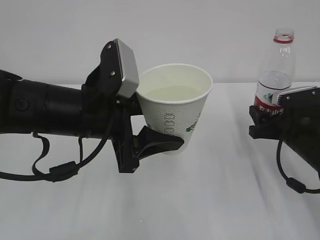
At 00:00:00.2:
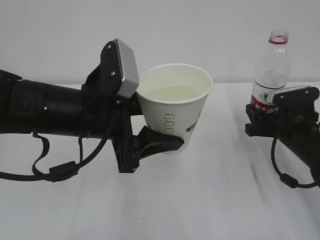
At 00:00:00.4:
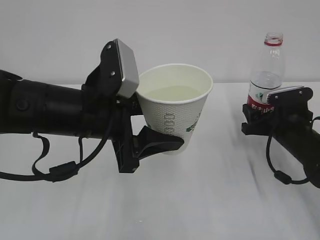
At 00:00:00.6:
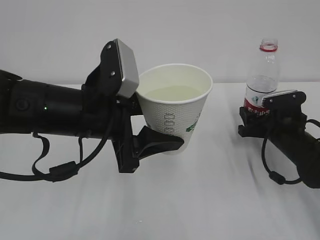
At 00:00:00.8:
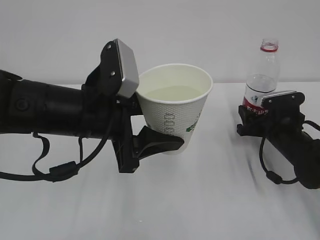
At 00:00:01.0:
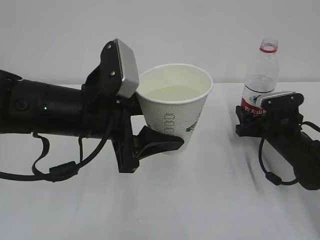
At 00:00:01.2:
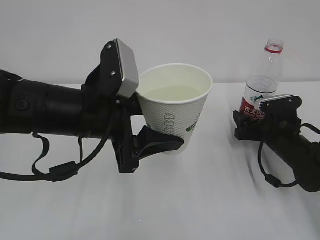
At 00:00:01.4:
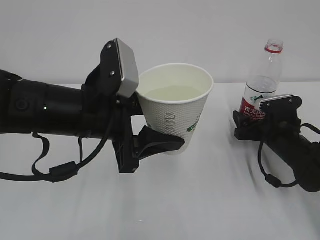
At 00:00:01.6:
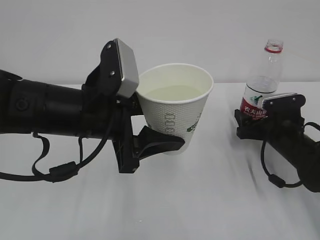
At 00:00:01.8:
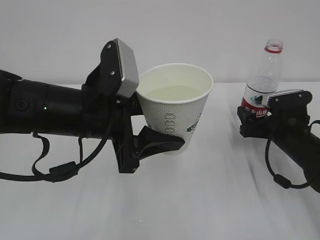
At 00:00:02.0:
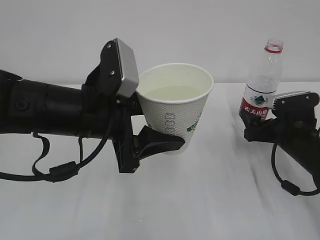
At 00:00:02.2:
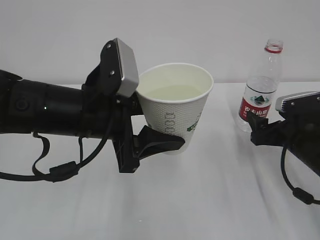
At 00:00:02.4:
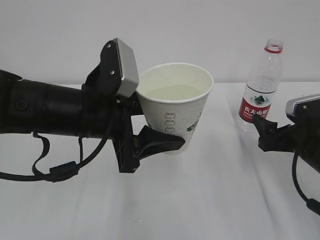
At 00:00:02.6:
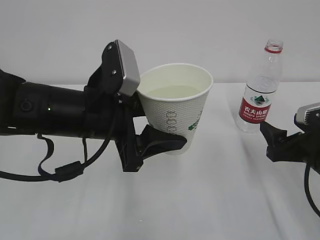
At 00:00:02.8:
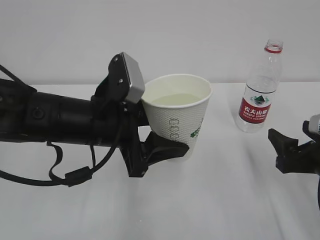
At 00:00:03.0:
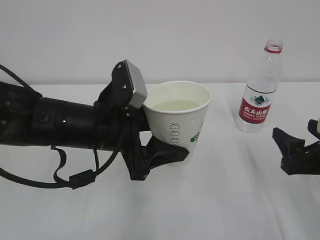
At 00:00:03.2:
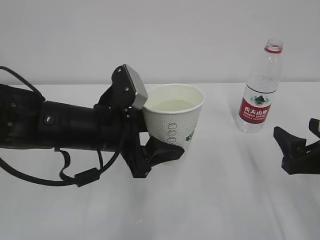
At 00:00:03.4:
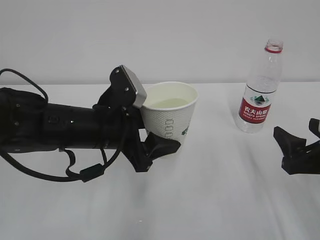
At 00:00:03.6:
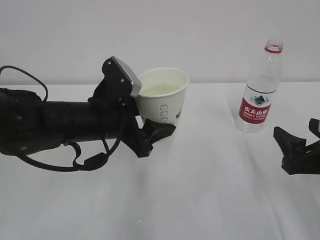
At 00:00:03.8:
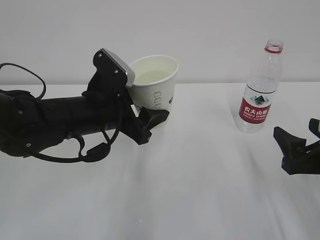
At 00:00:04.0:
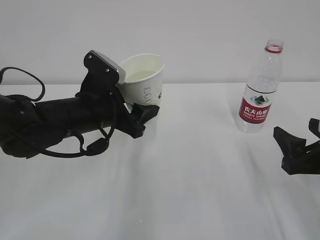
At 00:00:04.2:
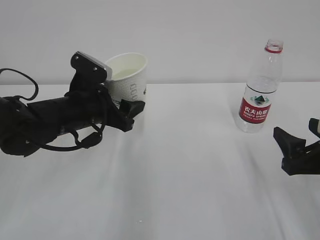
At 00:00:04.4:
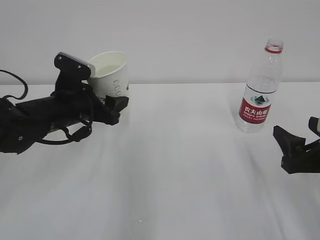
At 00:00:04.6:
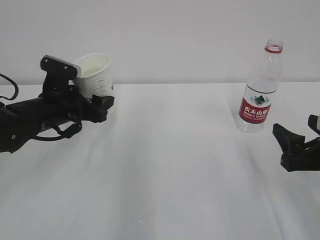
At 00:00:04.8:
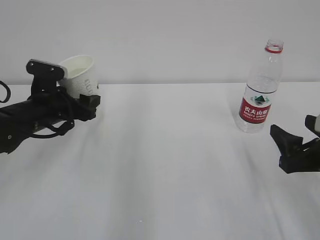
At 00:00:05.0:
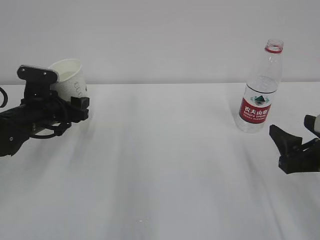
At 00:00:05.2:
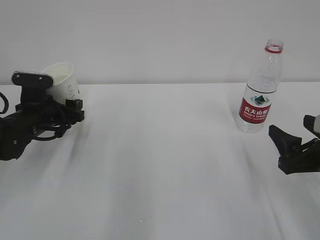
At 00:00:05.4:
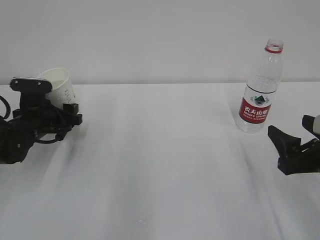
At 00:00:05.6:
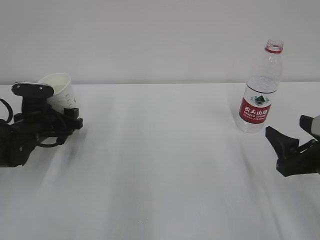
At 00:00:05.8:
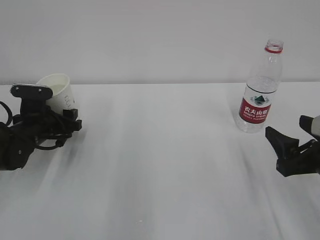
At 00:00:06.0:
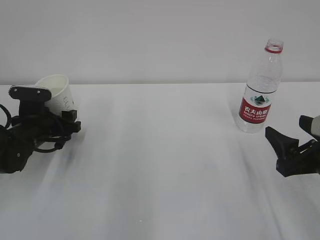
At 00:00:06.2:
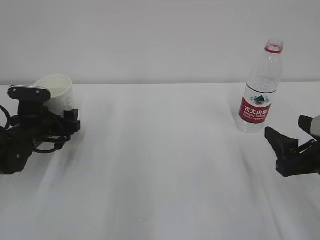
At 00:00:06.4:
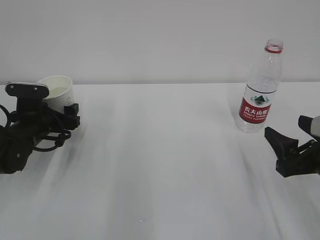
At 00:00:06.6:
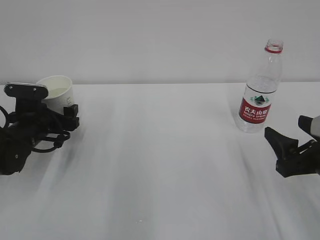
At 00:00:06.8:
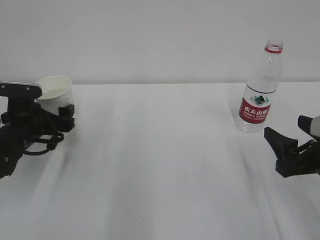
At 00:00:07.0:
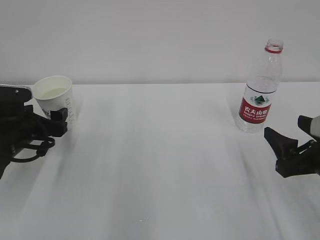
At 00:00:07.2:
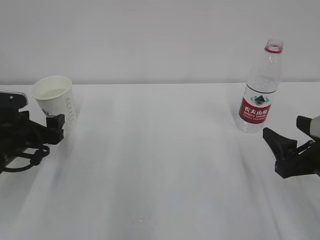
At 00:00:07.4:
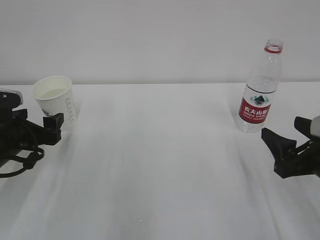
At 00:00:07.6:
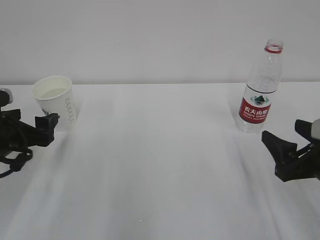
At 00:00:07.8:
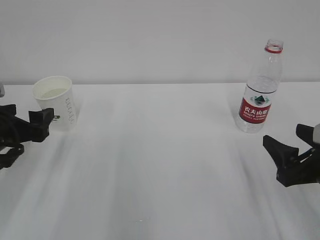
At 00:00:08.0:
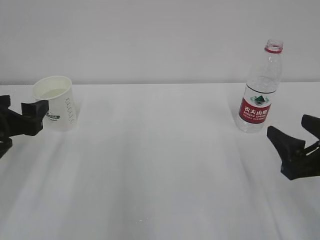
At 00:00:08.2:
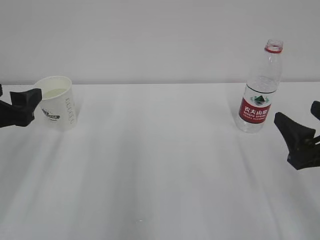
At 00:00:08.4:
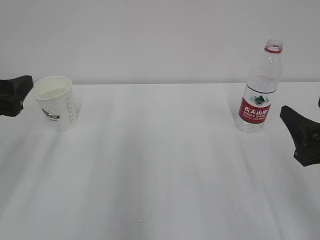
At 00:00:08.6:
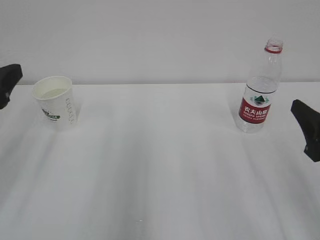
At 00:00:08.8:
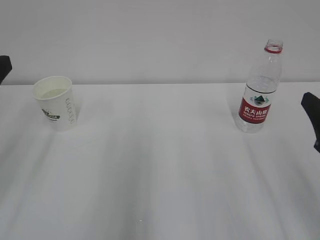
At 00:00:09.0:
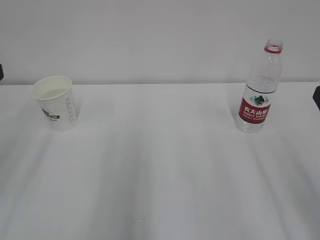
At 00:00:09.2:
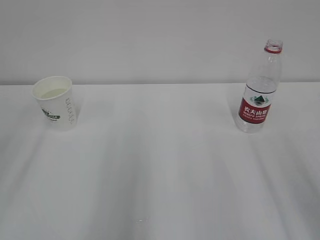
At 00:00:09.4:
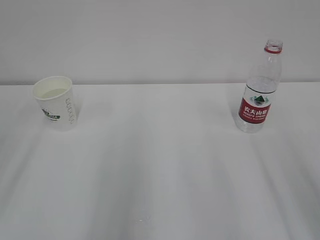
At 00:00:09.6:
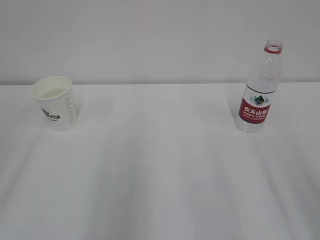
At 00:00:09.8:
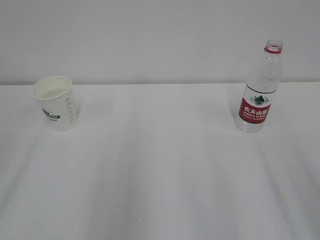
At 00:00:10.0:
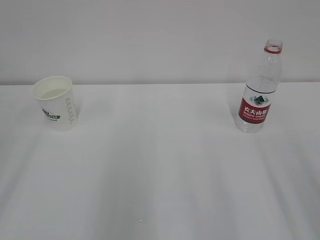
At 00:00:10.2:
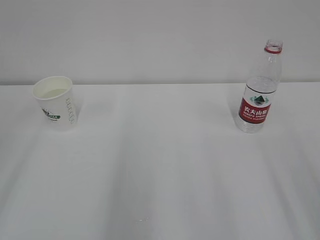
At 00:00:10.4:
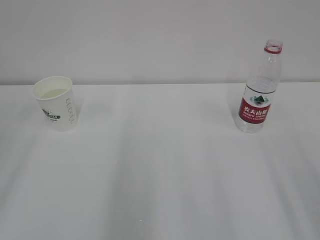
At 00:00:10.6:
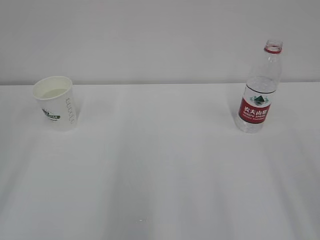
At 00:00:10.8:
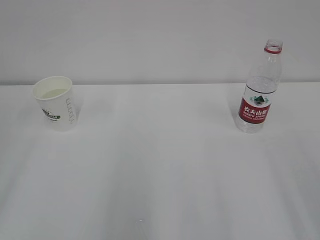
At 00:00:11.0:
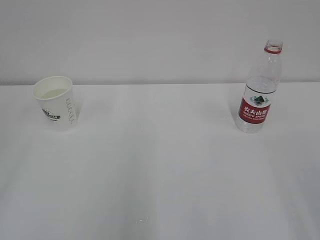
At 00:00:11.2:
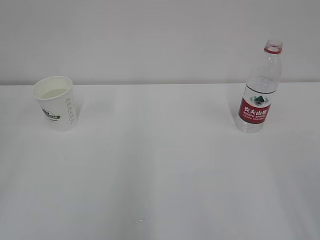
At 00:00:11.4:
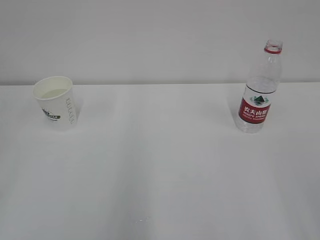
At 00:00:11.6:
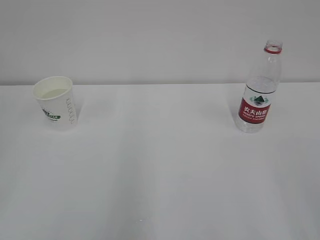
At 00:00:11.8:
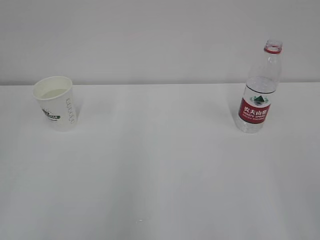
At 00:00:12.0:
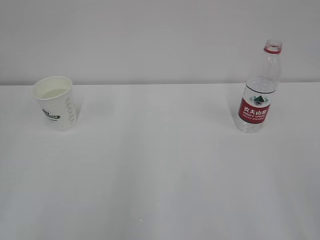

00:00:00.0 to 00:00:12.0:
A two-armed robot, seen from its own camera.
00:00:00.0 to 00:00:01.6: The right gripper opens.
00:00:01.6 to 00:00:03.0: The right gripper is displaced backward and upward by about 15 cm, and closes.
00:00:03.0 to 00:00:04.4: The left gripper heads forward and to the left, covering roughly 10 cm.
00:00:04.4 to 00:00:06.0: The left gripper is displaced to the left and downward by some 10 cm.
00:00:06.0 to 00:00:07.6: The left gripper travels backward and upward by roughly 10 cm, and opens.
00:00:07.6 to 00:00:09.0: The right gripper heads upward, covering roughly 10 cm; the left gripper travels upward and backward by about 15 cm, and closes its fingers.

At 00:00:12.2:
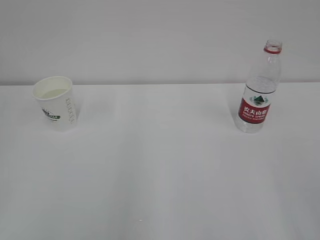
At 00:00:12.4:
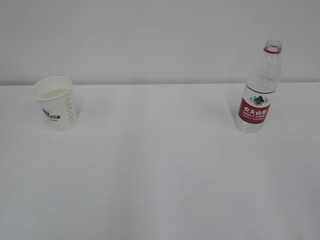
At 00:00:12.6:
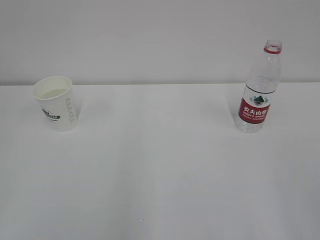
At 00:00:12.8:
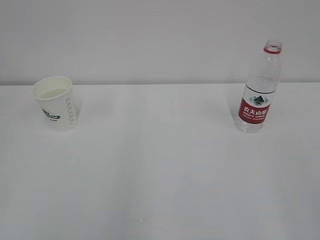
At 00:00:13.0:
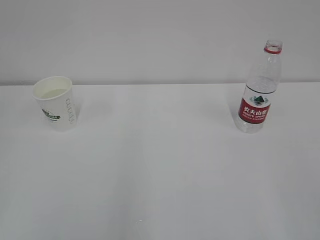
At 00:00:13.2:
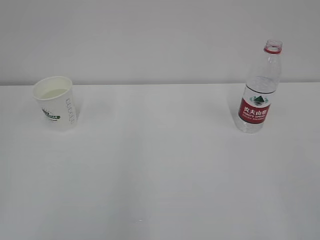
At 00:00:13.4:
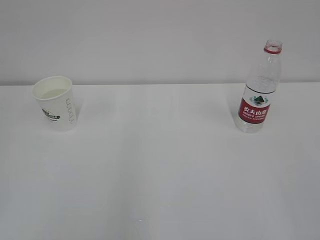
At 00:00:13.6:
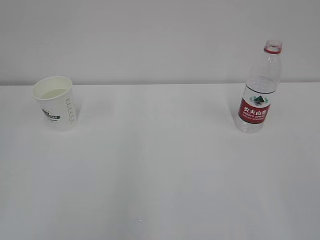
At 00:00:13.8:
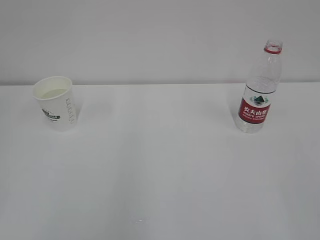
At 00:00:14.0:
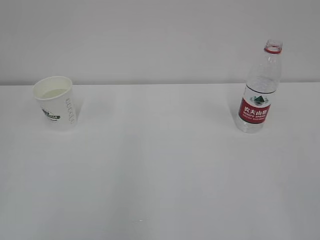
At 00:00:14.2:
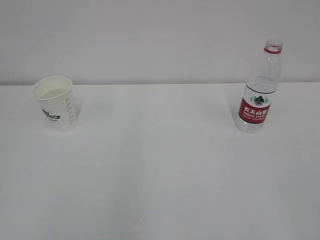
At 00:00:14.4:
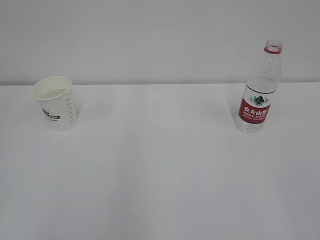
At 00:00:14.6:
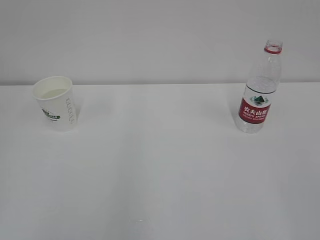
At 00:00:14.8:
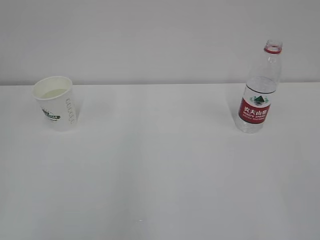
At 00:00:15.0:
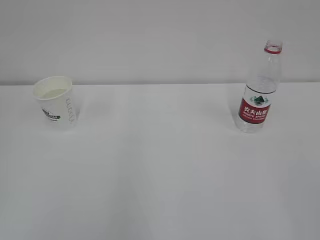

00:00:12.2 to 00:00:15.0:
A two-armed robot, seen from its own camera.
00:00:13.6 to 00:00:15.0: Both grippers stay about where they are.
